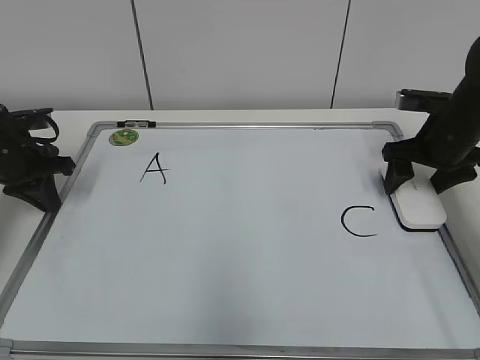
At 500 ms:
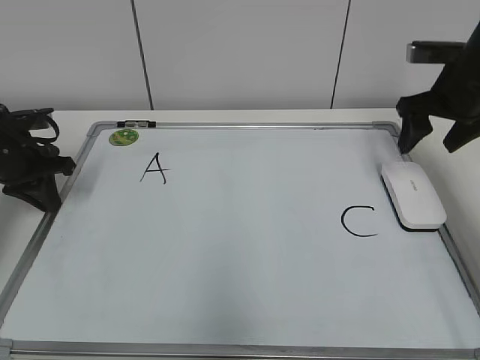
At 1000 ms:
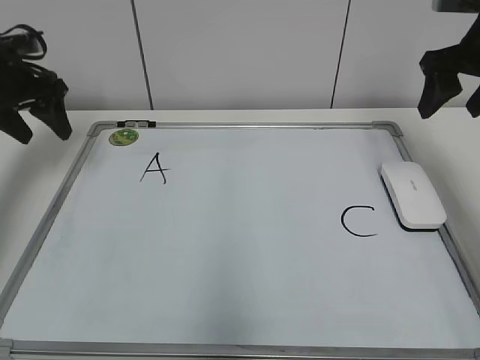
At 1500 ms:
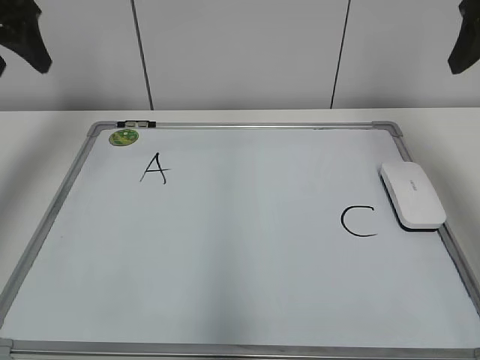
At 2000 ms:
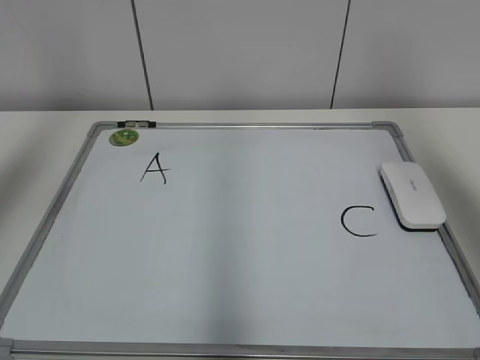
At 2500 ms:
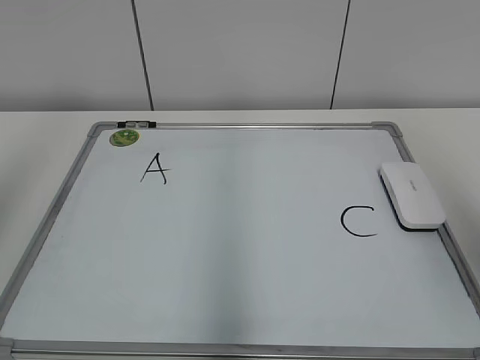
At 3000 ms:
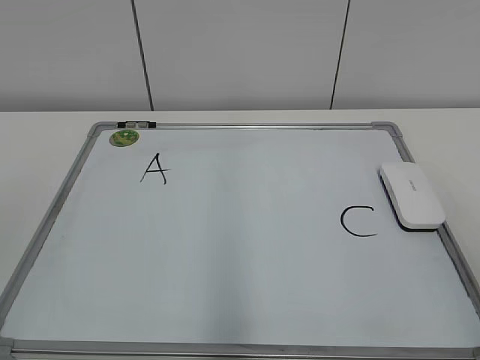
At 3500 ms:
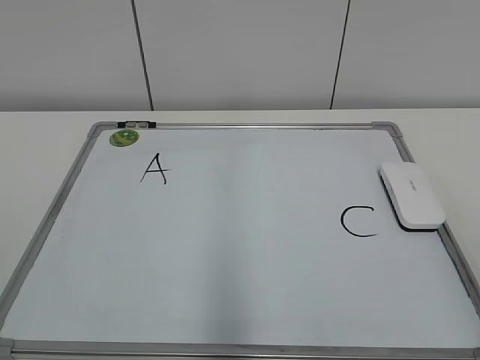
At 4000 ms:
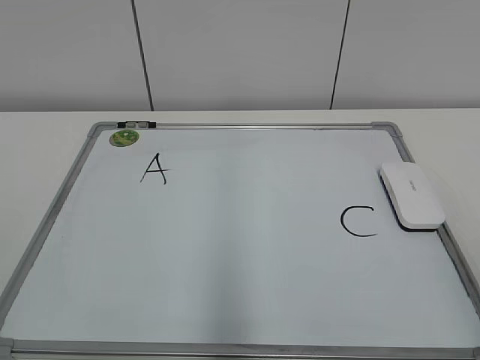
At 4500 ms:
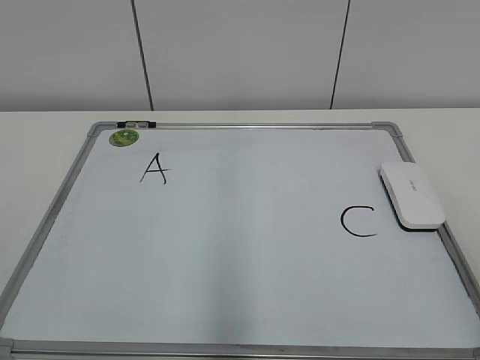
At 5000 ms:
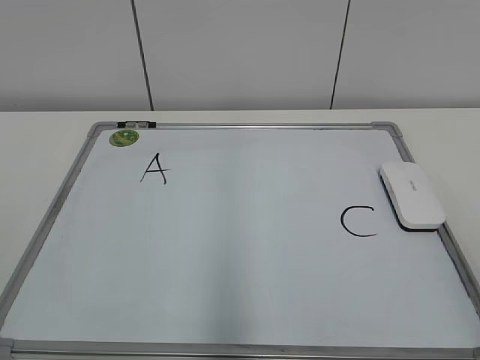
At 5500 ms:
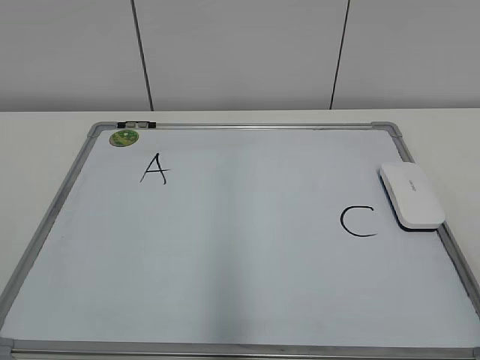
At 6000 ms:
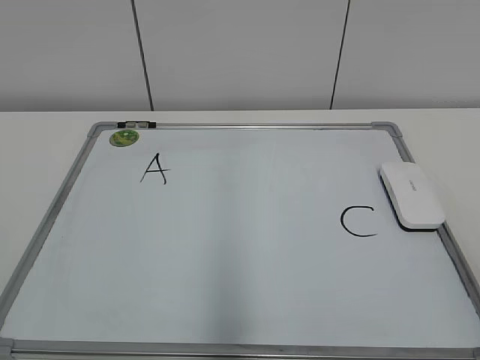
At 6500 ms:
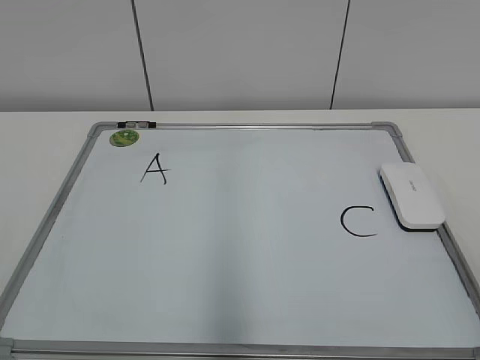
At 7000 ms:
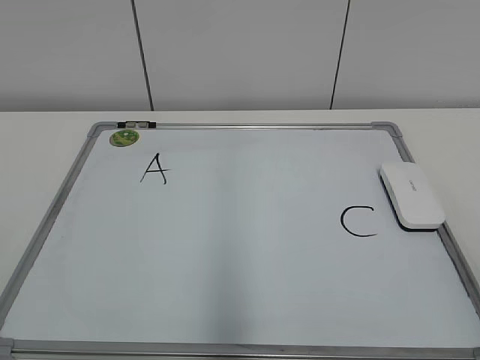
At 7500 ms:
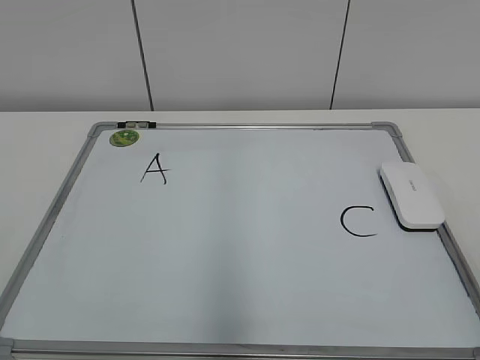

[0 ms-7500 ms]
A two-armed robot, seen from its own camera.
Task of the whole recording: pick up the eraser on the blackboard and erase the letter "B".
0 ms to 2000 ms: The grippers both shift upward and backward by some 30 cm. The left gripper opens up.
2000 ms to 4000 ms: Both grippers move backward and downward, some 30 cm.
